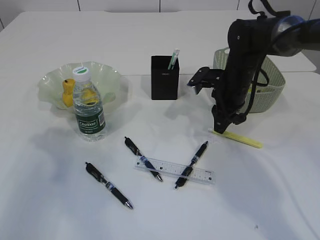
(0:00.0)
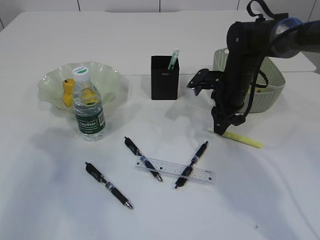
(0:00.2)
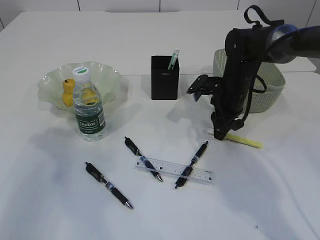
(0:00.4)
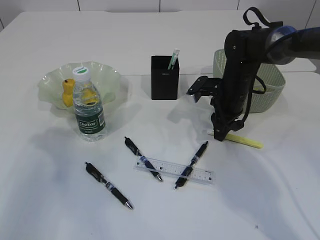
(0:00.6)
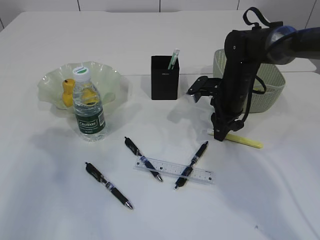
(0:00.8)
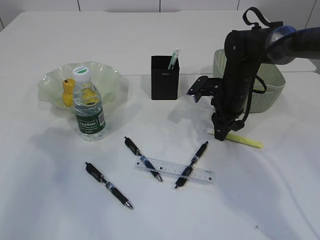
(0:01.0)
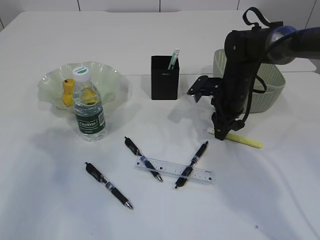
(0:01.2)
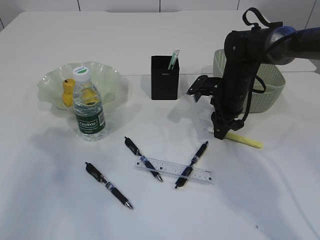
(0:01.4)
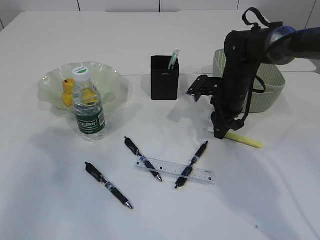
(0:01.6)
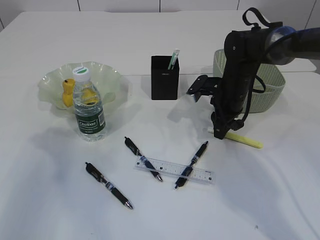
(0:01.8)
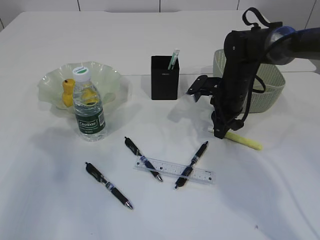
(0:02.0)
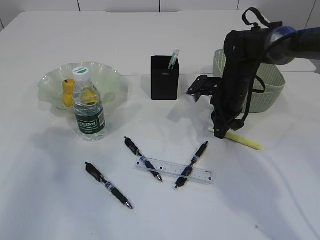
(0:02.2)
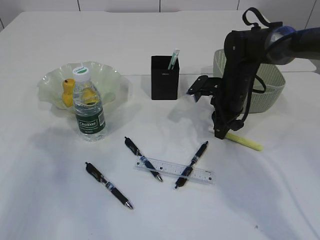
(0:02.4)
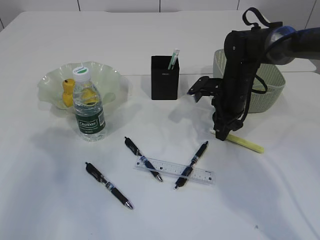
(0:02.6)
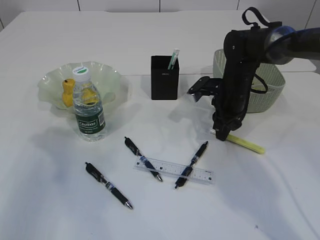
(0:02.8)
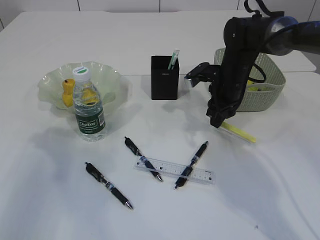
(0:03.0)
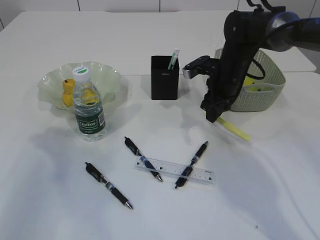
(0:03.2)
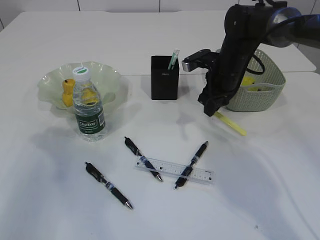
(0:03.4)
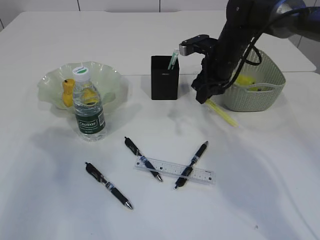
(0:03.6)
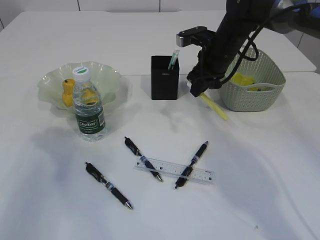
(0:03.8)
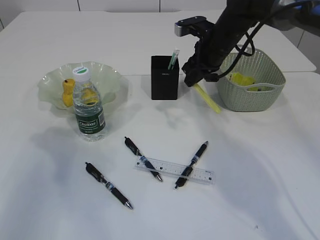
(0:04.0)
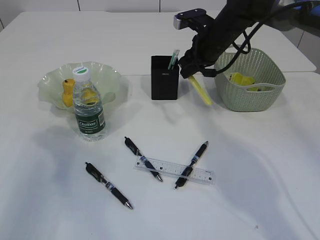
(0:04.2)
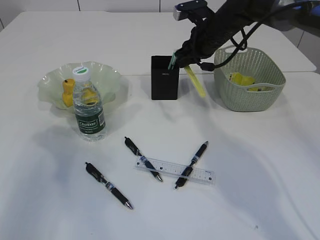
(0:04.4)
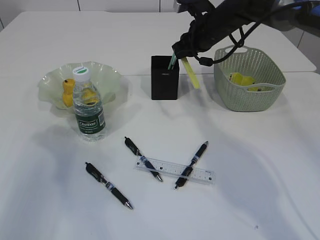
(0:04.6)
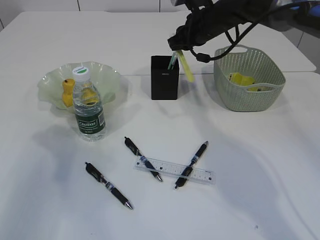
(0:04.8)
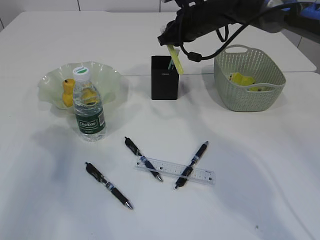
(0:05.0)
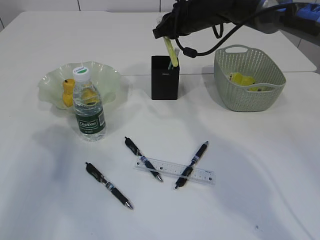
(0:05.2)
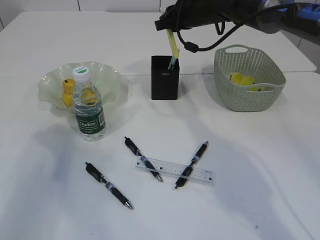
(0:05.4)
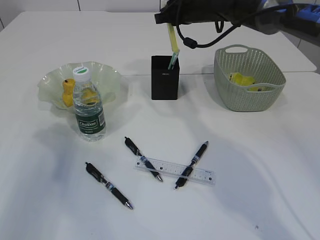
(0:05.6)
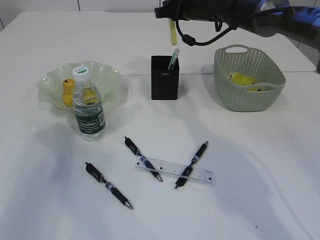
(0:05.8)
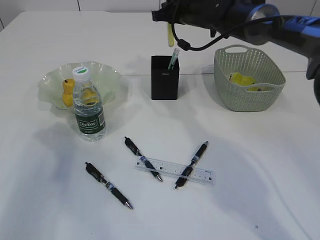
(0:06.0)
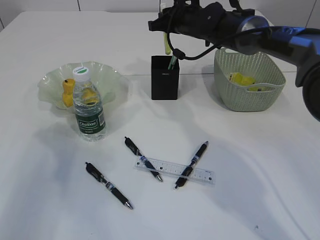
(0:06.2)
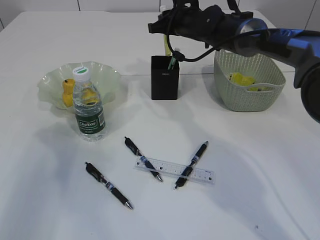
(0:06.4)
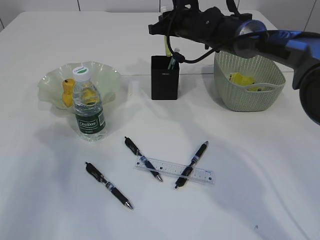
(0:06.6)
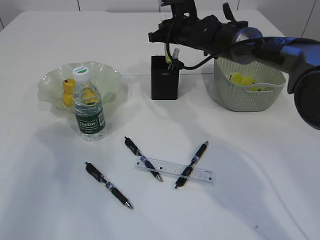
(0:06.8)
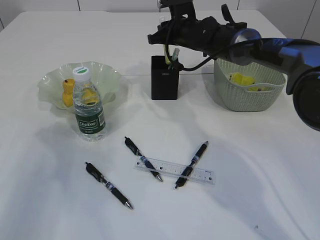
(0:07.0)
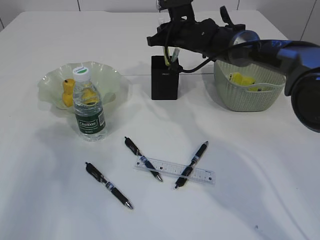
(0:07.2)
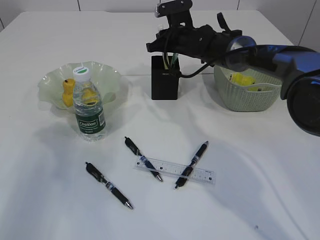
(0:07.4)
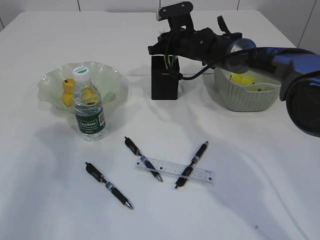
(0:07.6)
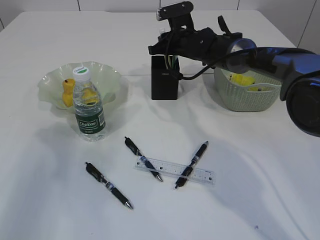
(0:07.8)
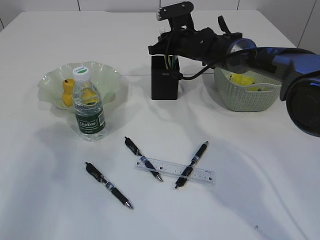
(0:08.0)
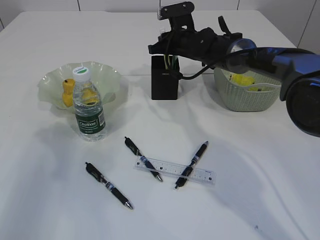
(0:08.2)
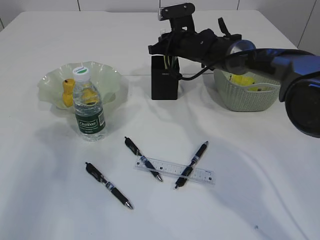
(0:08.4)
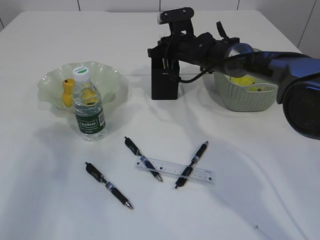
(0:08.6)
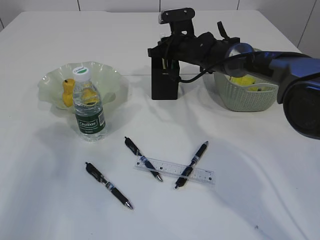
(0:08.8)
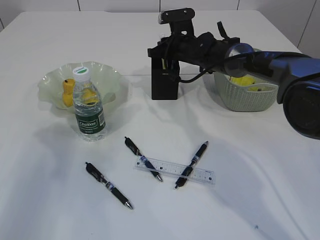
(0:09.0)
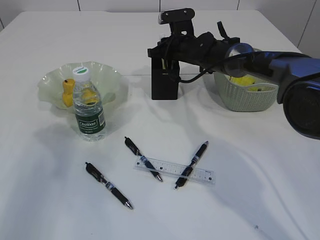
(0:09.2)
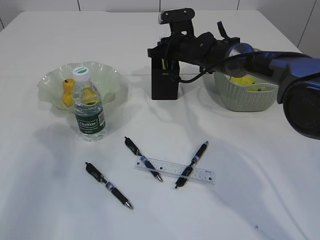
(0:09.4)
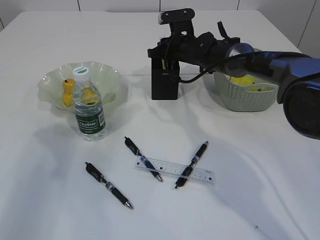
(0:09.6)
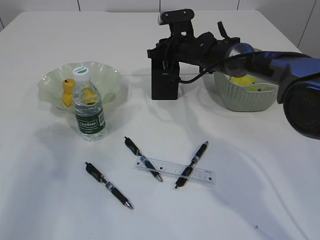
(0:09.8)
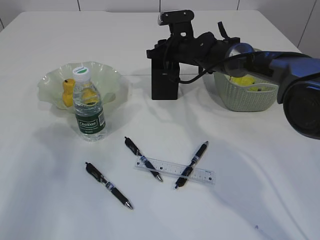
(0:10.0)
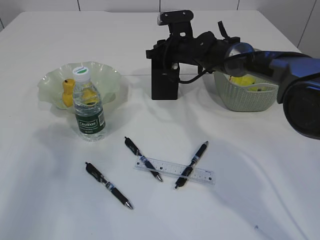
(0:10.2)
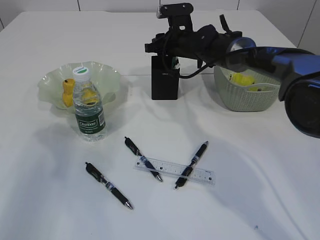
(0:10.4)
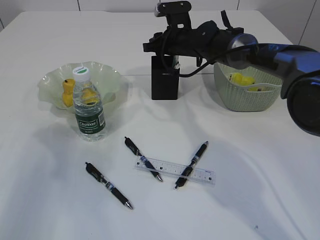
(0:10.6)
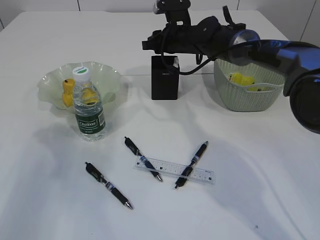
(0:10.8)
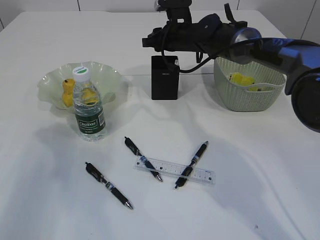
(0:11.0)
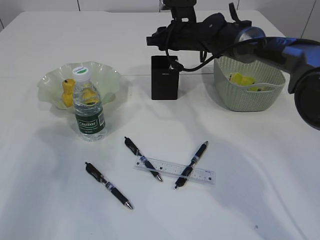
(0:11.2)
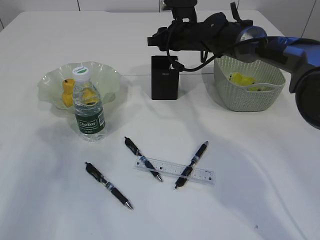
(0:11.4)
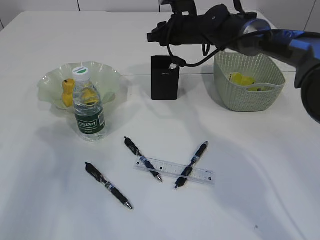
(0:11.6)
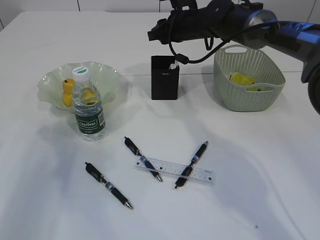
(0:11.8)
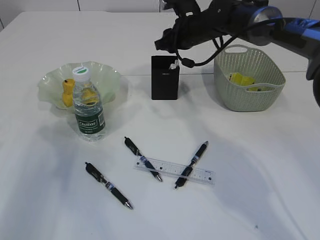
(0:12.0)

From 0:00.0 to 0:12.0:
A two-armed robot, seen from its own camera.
Step, from 0:00.0 to 0:03.0: pick up the yellow knife.
Step, from 0:03.2 to 0:10.8: place the yellow knife into the pen holder.
From 0:00.0 to 0:03.0: The grippers move only a little.
From 0:03.0 to 0:04.4: The right gripper travels upward by roughly 10 cm.
From 0:04.4 to 0:06.0: The right gripper ends up roughly 5 cm from where it was.
From 0:06.0 to 0:07.6: The right gripper moves downward, approximately 10 cm.
From 0:07.6 to 0:09.0: The grippers make only small movements.
From 0:09.0 to 0:10.4: Both grippers stay put.
From 0:10.4 to 0:12.0: The right gripper ends up roughly 5 cm from where it was.

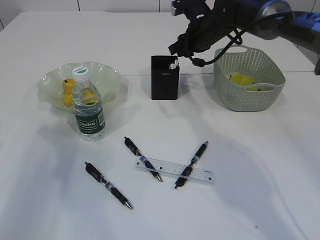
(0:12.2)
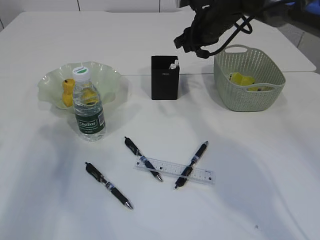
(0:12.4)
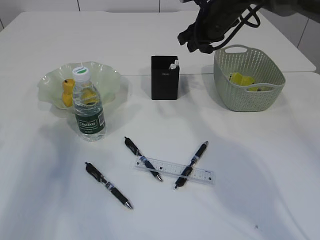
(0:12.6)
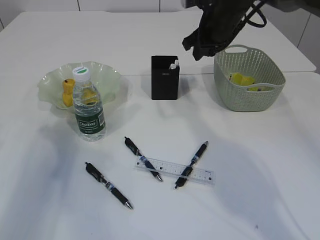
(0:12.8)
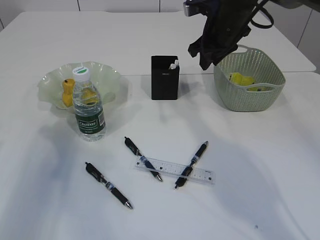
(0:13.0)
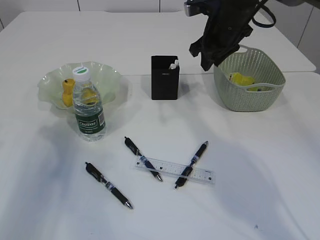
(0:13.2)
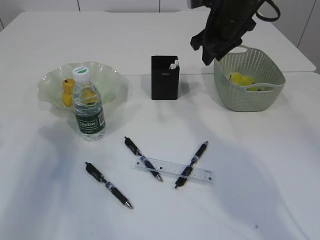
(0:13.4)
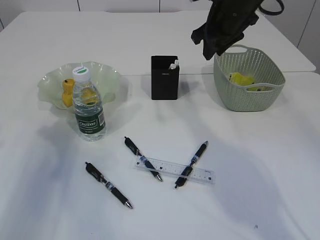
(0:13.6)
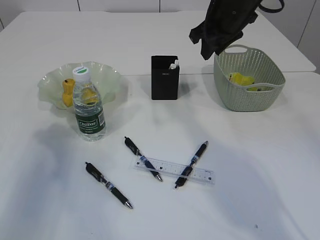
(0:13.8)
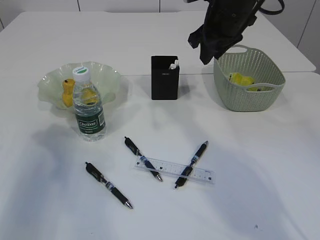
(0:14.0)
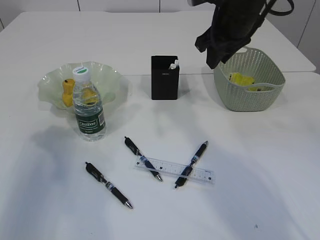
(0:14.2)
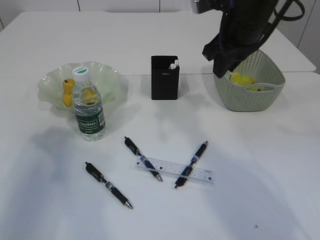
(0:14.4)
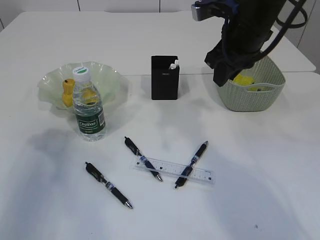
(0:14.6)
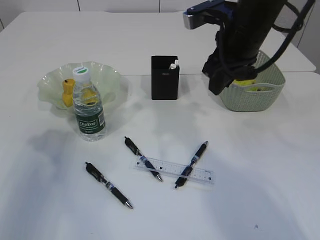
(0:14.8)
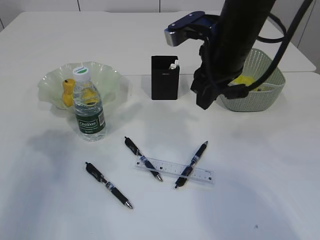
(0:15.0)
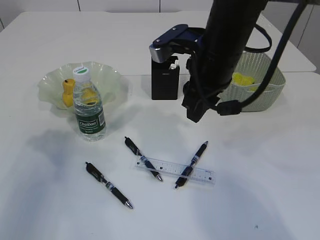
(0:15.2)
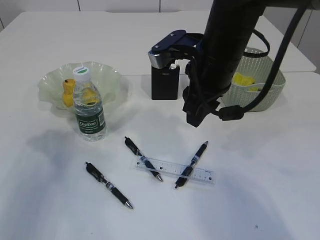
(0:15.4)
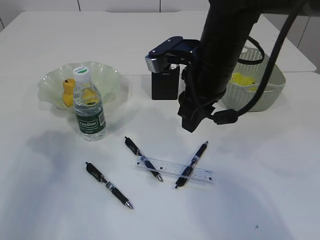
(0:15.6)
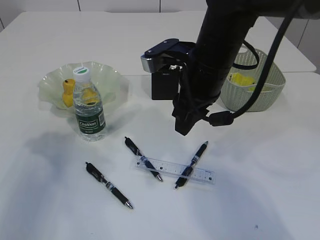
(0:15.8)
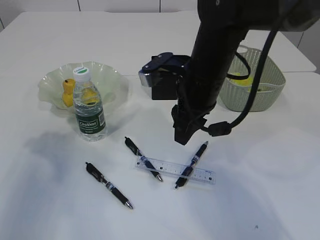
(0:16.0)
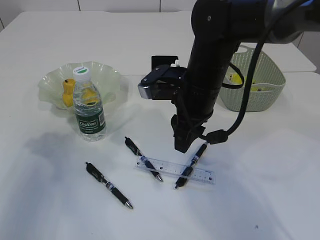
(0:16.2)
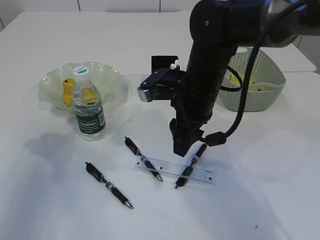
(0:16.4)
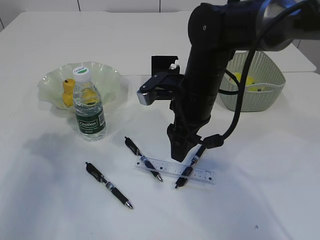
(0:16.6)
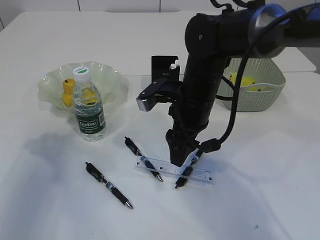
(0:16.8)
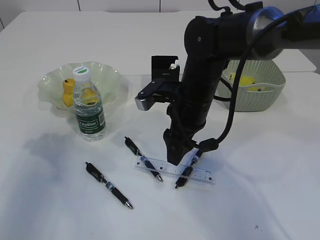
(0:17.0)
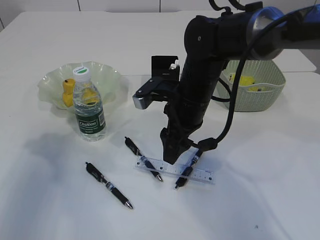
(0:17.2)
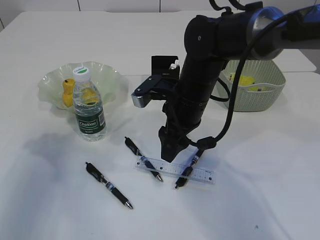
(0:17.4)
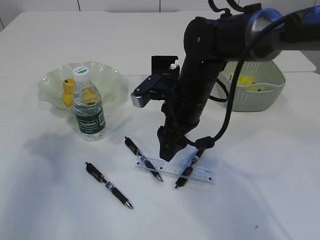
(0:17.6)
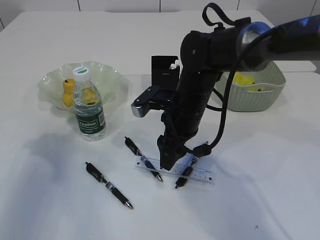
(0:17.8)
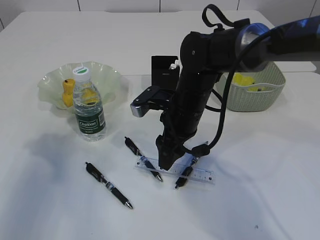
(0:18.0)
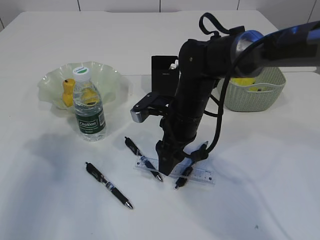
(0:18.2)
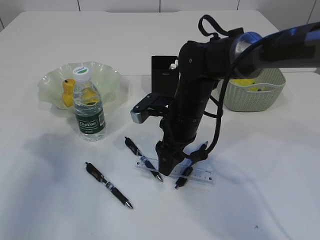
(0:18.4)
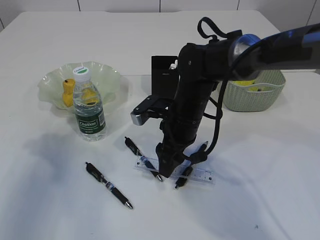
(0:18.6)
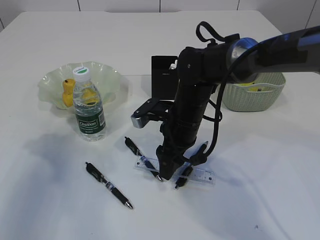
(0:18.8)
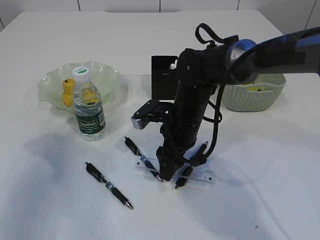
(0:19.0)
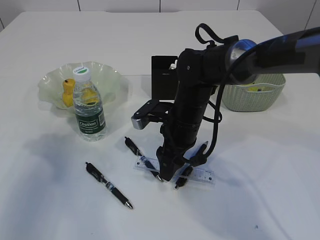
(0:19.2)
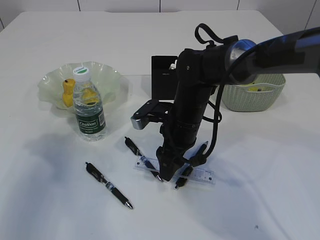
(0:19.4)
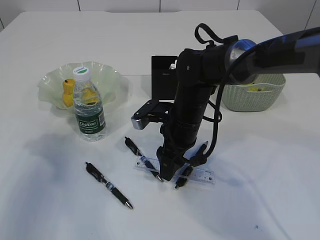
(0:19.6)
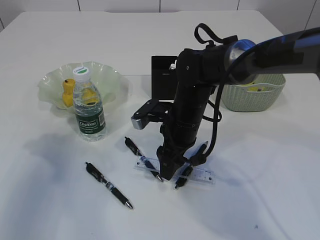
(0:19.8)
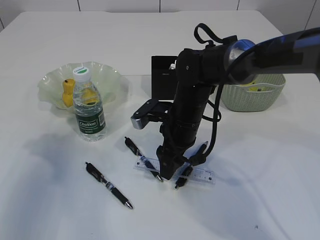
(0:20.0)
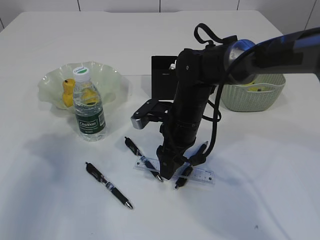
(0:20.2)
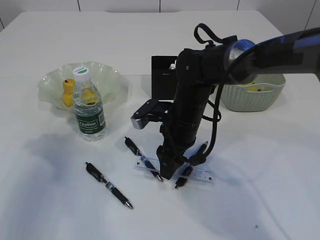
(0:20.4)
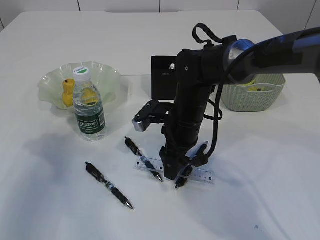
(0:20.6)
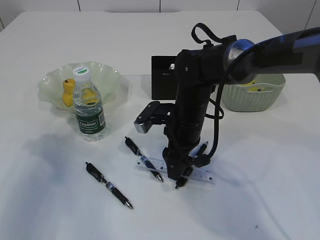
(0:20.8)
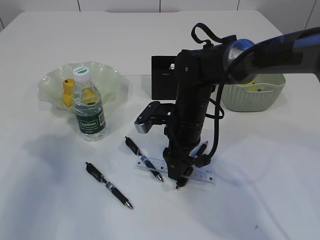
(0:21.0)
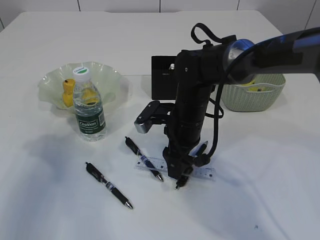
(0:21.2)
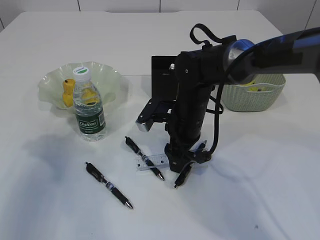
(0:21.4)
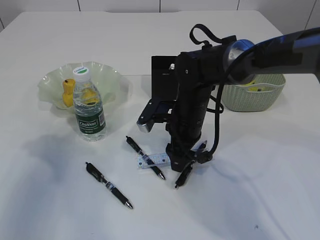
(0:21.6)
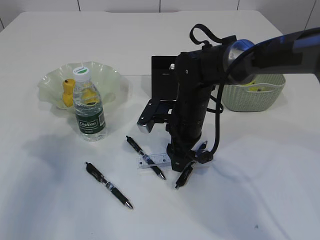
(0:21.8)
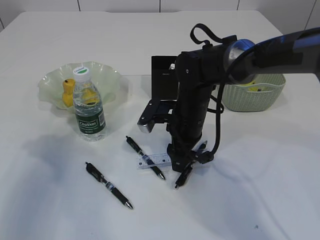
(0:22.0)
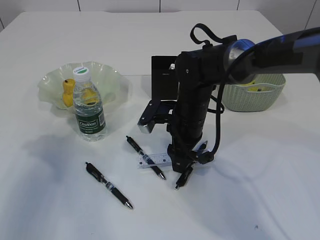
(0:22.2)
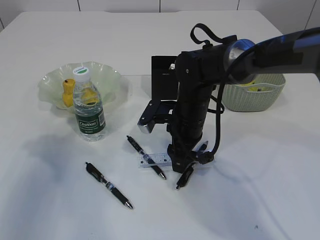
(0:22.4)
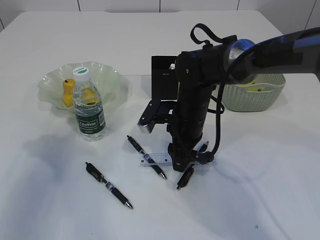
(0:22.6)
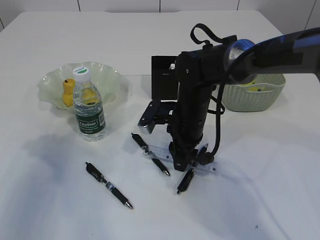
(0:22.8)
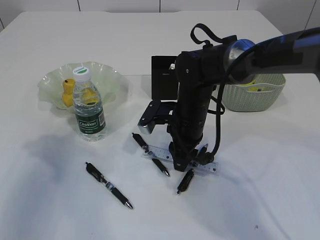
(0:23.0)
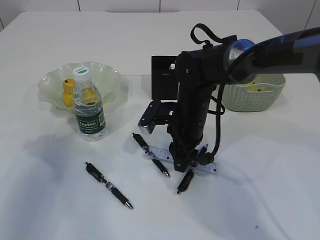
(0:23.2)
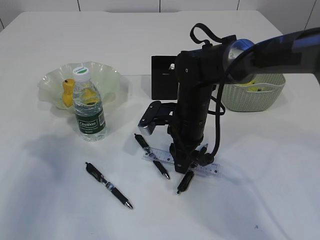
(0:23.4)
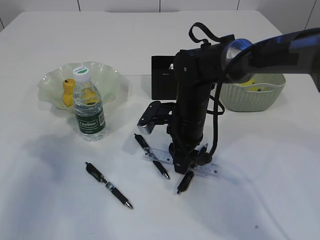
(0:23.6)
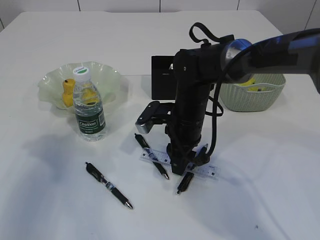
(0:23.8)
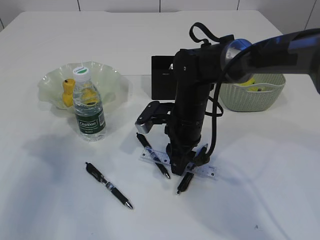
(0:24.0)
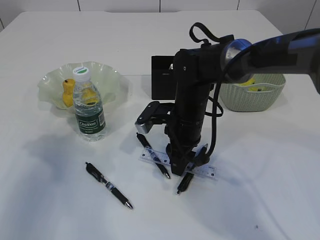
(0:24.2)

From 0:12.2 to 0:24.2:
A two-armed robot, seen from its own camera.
From 0:12.2 to 0:13.8: The right gripper is displaced upward and backward by some 10 cm.
From 0:13.8 to 0:15.2: The right gripper is displaced backward and to the left by approximately 15 cm.
From 0:15.2 to 0:16.6: The right gripper shifts roughly 5 cm downward, and opens.
From 0:16.6 to 0:18.2: The right gripper is displaced downward by approximately 5 cm.
From 0:18.2 to 0:24.2: The grippers move only a little.
